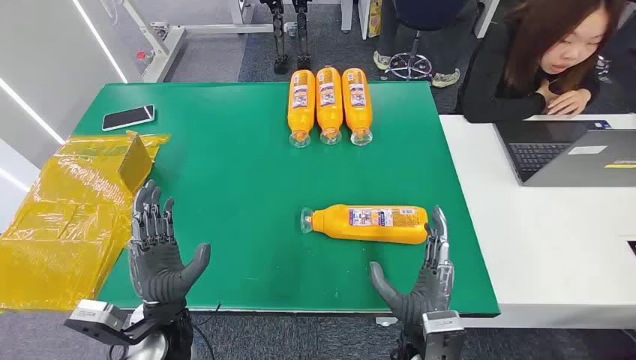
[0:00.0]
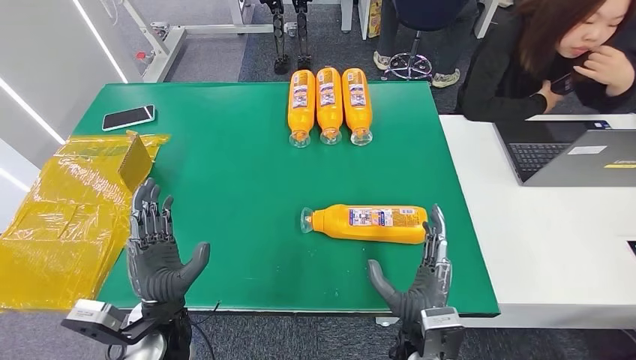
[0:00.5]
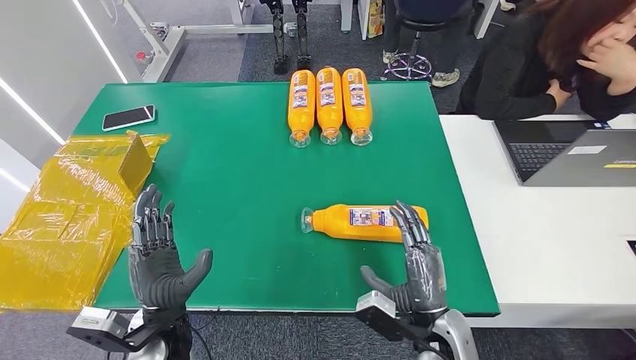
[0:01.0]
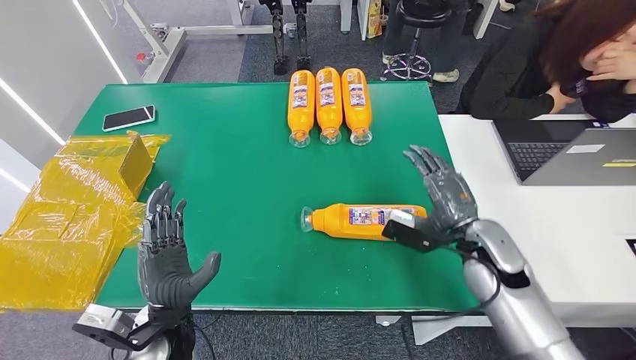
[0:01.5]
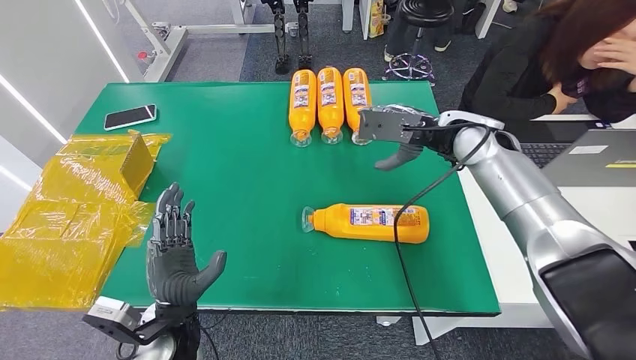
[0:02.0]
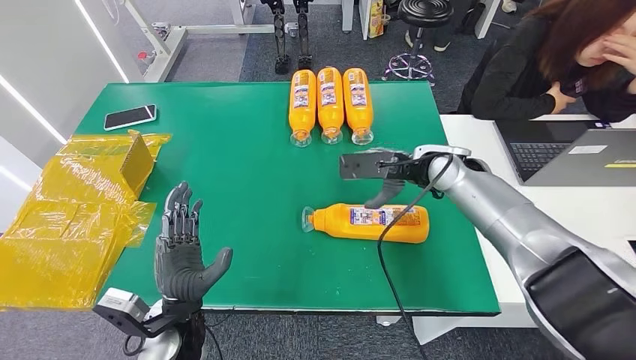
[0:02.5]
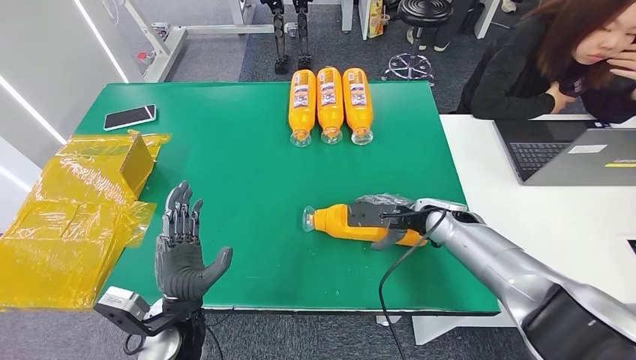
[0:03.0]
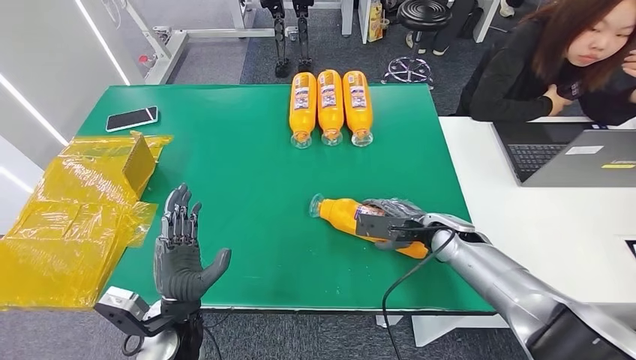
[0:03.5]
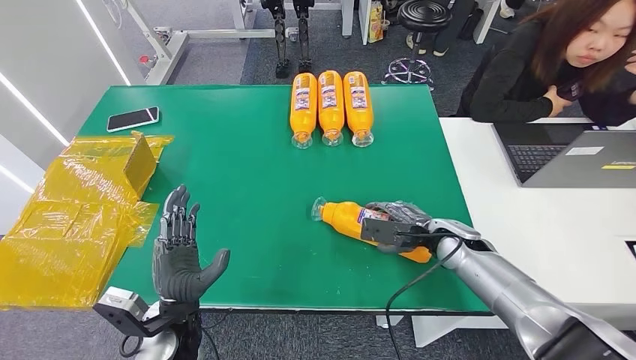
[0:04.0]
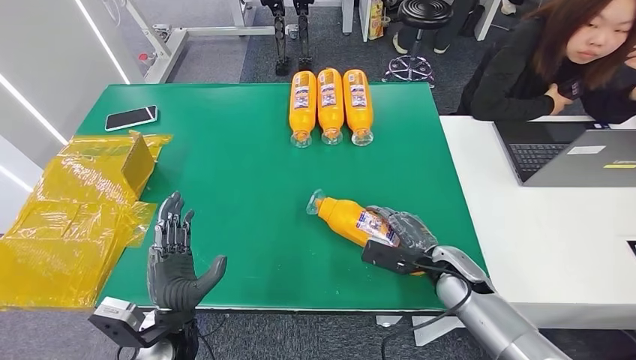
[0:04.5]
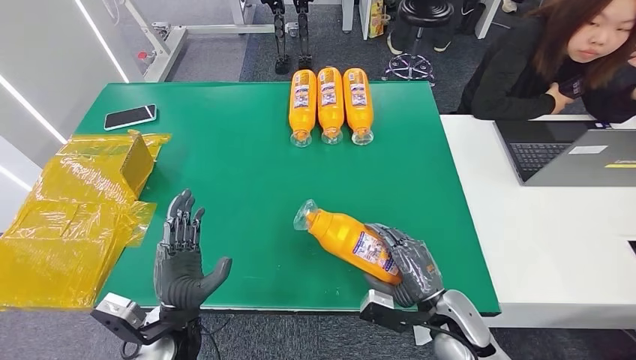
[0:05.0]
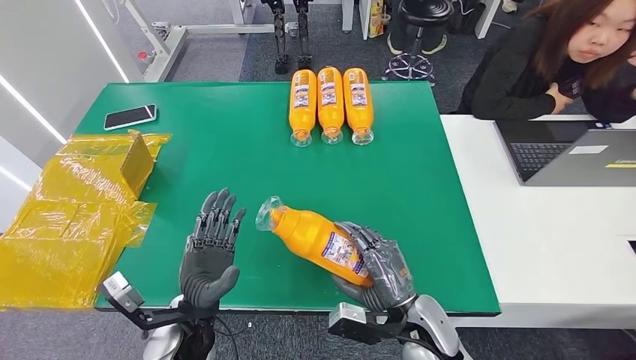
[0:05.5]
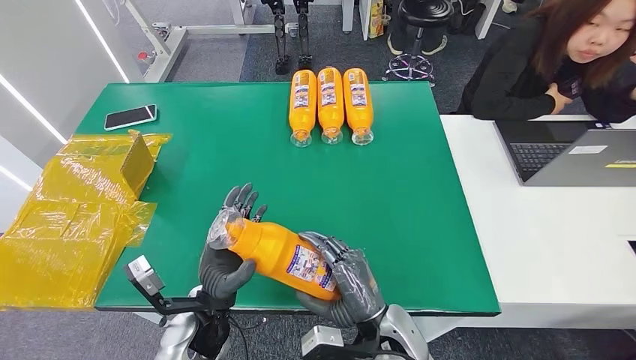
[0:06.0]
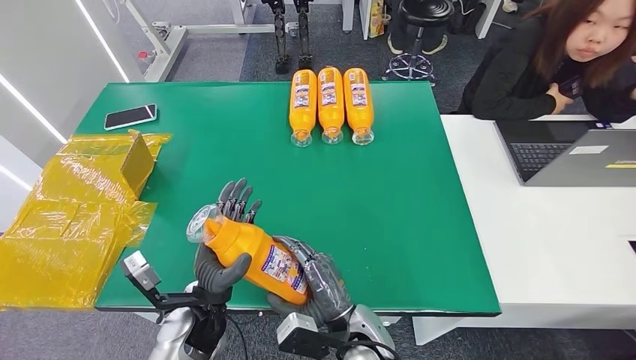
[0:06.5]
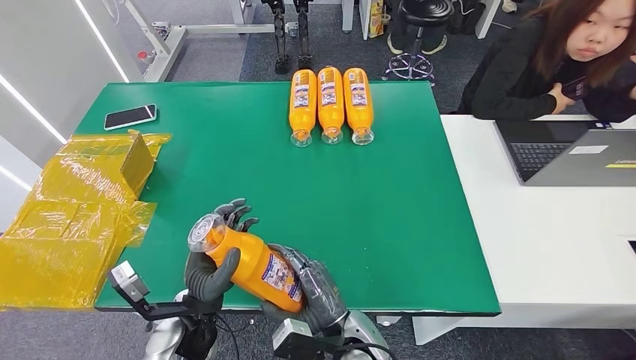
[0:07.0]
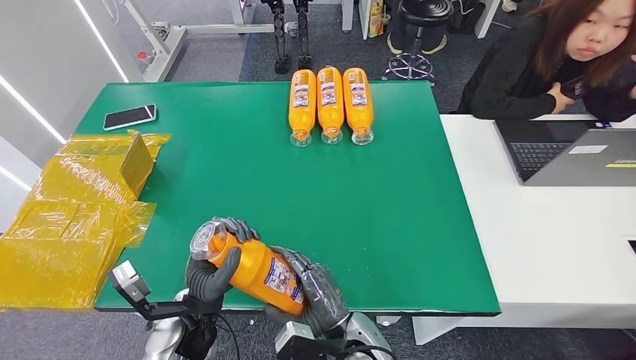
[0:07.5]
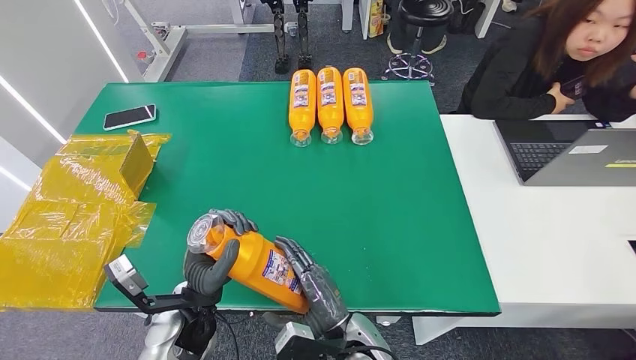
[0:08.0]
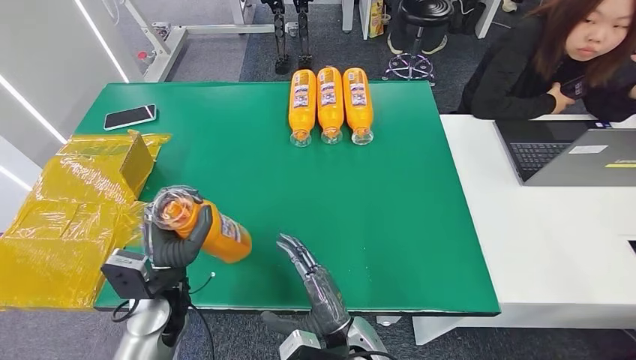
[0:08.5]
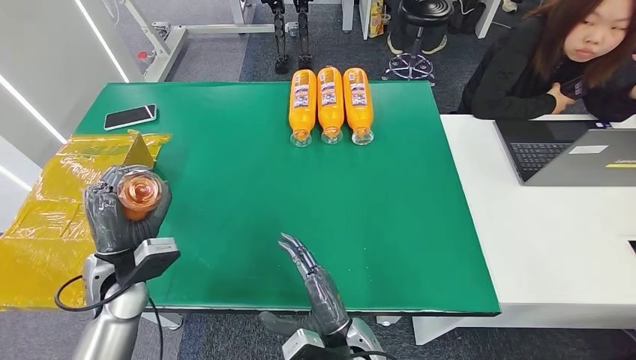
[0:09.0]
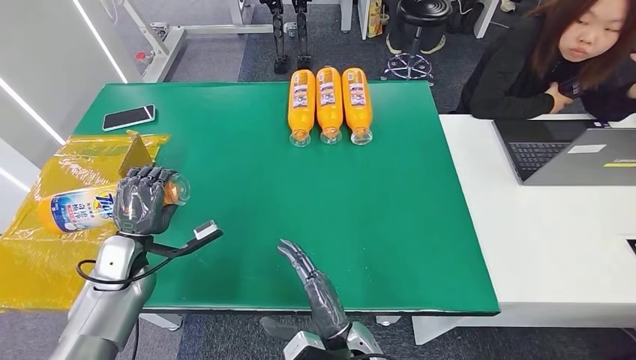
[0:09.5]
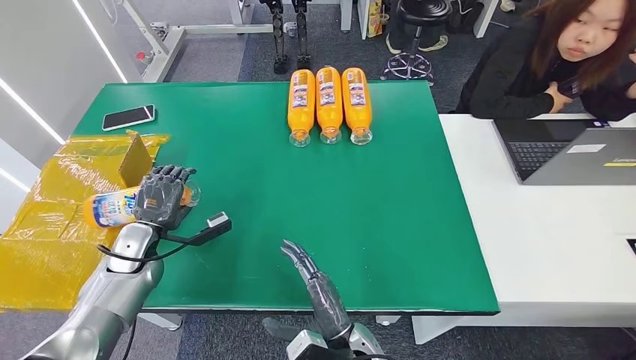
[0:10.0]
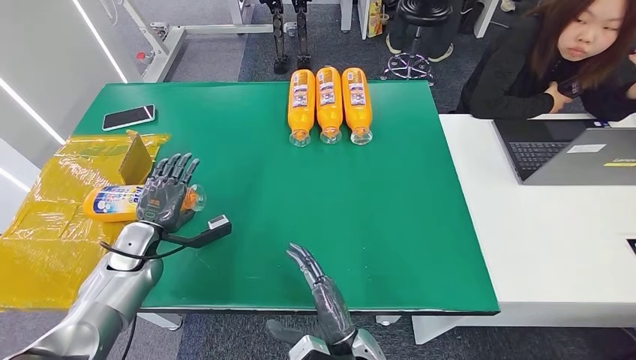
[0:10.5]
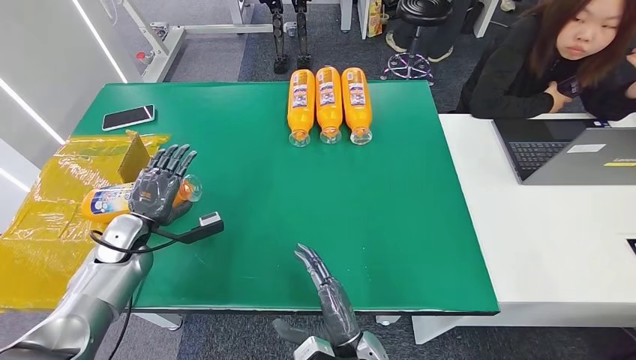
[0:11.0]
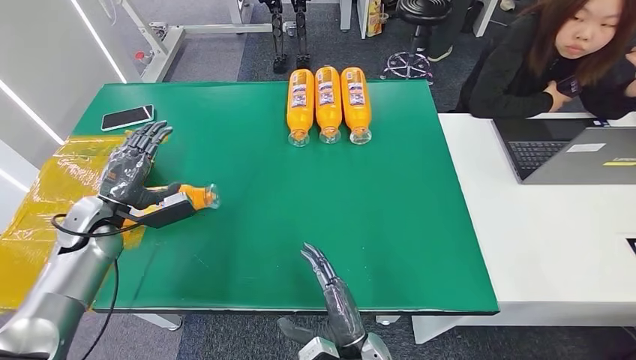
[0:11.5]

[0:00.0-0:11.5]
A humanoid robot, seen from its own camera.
Step, 0:00.0 to 0:05.5: Pick up the bottle from the table.
Step, 0:06.0 to 0:11.5: Turn the bottle to the front side.
0:06.0 to 0:07.5: The right hand is displaced to the left by about 5 cm.
0:07.5 to 0:09.5: The left hand shifts about 20 cm to the left and forward.
0:09.5 to 0:11.5: The left hand shifts about 10 cm to the left and forward.

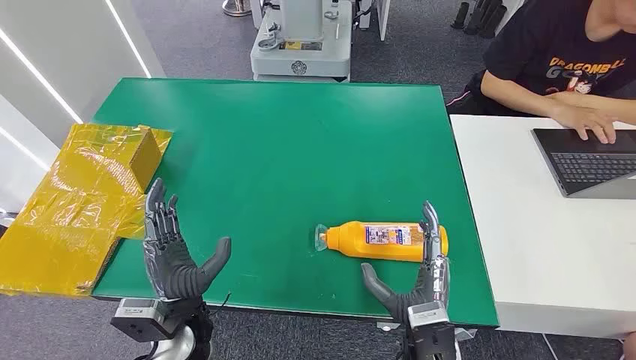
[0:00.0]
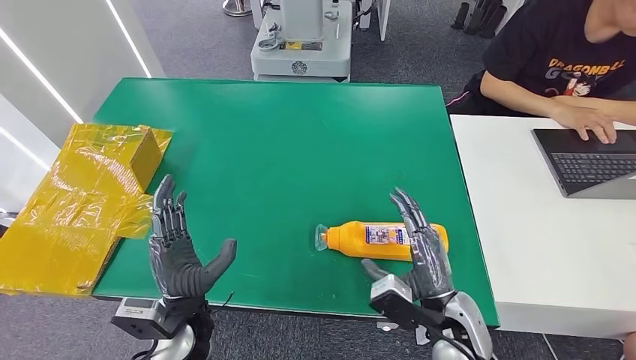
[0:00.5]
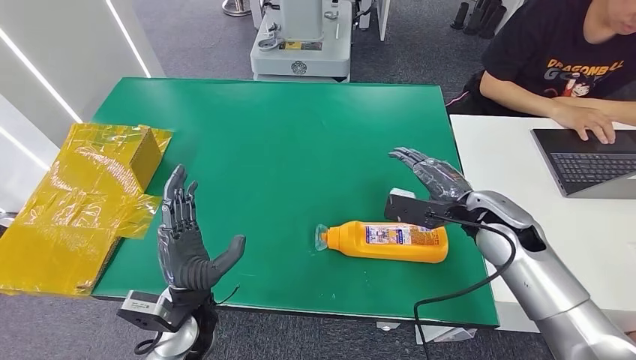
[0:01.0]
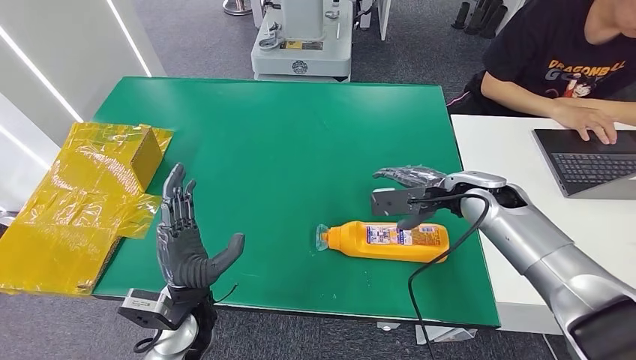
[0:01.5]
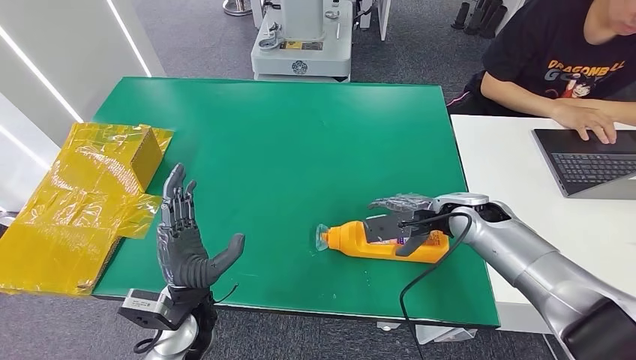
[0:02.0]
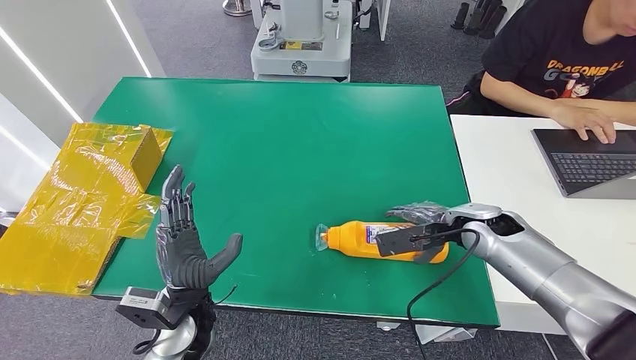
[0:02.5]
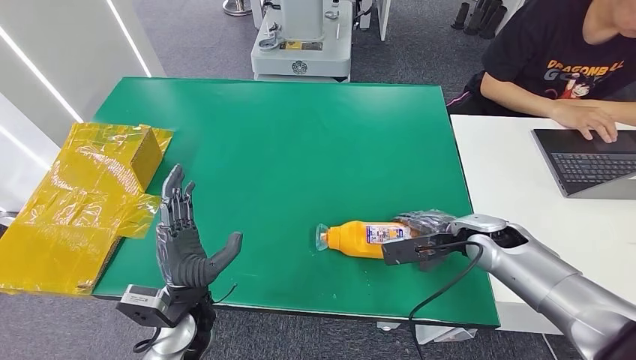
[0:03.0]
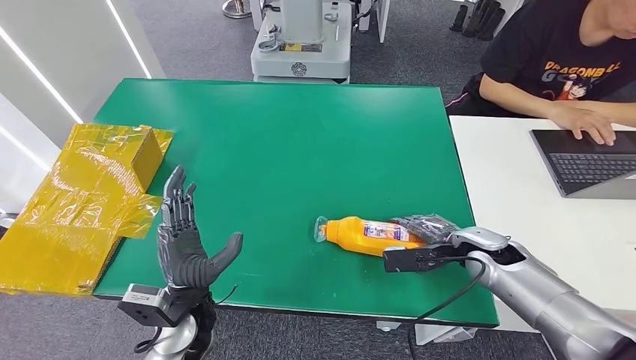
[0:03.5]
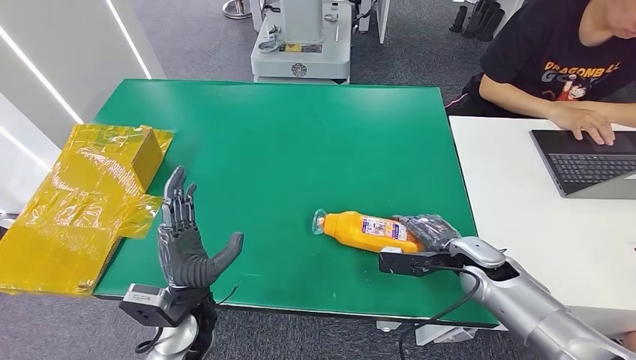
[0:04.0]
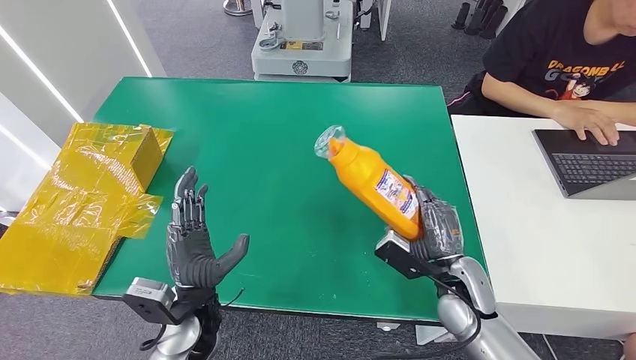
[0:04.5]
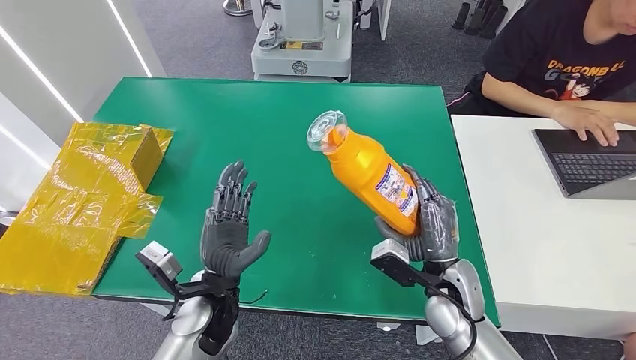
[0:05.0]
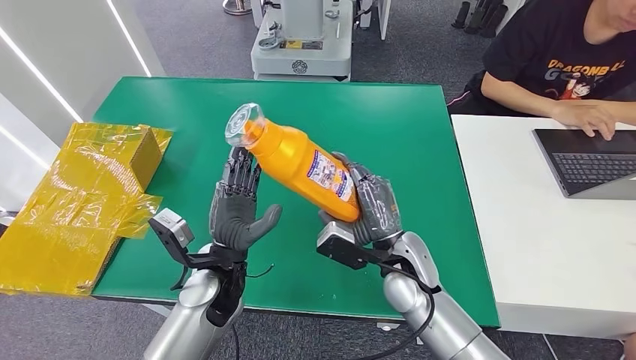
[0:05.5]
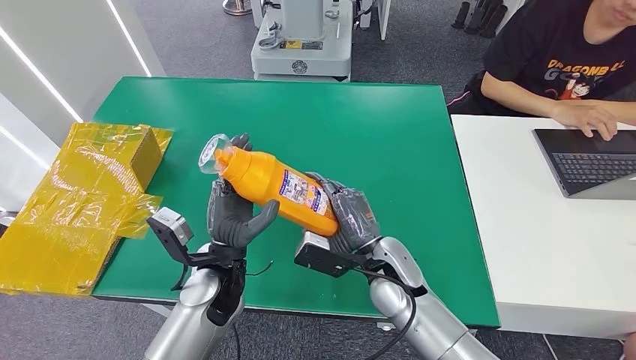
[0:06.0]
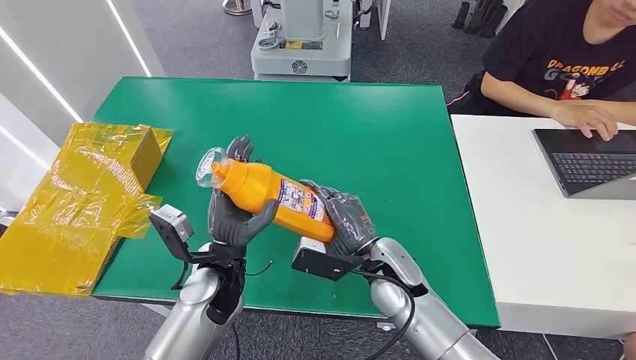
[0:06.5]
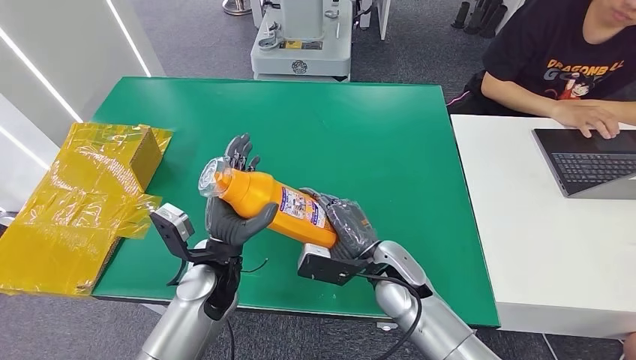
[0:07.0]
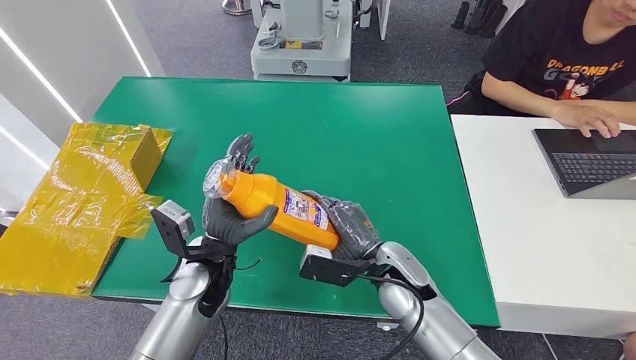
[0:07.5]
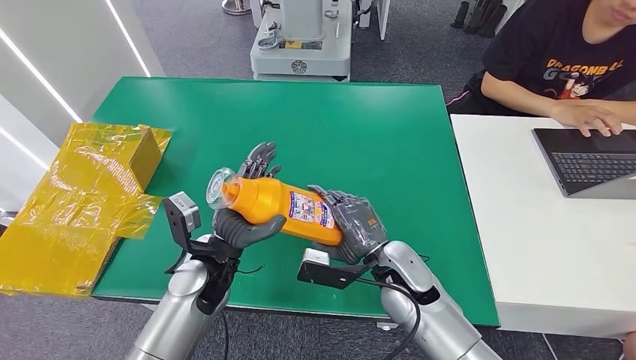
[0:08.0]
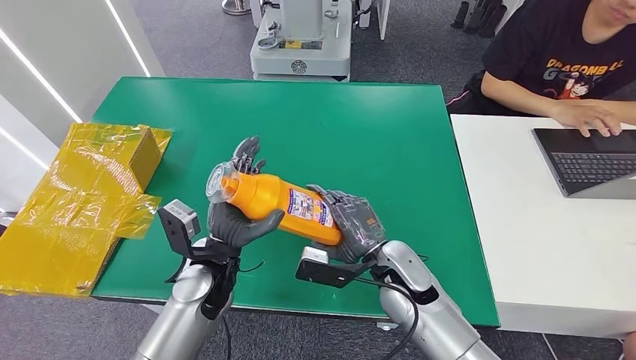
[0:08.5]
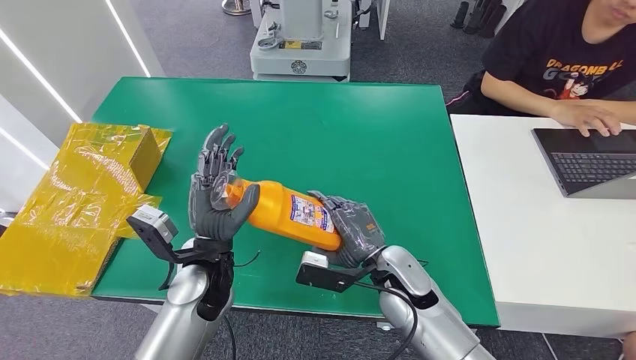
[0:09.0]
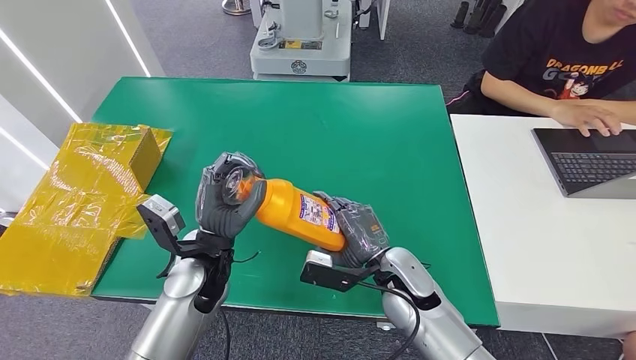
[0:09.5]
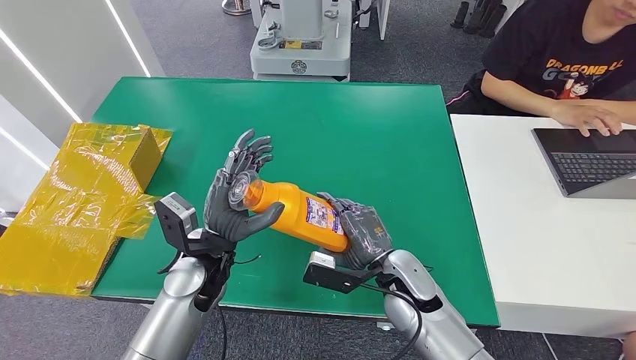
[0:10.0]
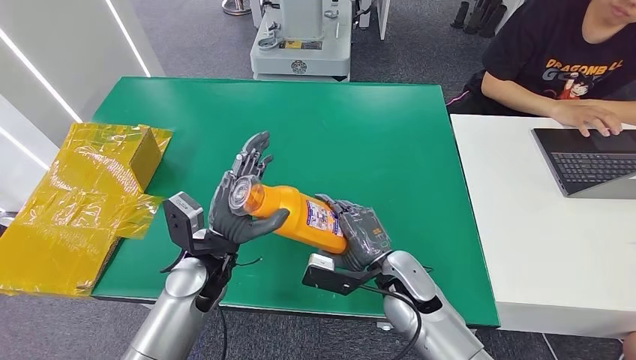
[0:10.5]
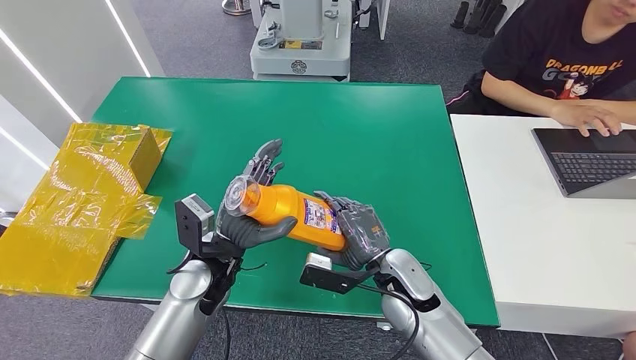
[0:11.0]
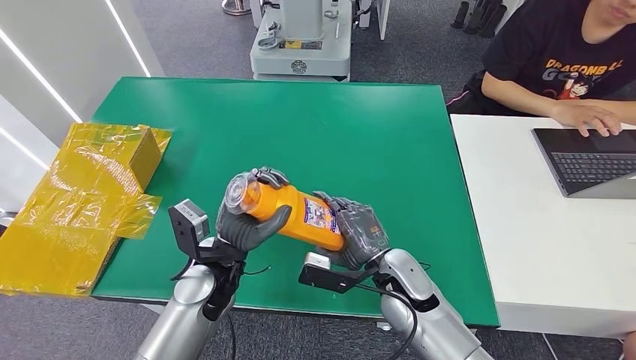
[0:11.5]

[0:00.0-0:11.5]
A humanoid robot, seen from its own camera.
Step, 0:00.0 to 0:05.5: Pick up the bottle from the table.
0:02.0 to 0:04.0: The right hand shifts roughly 10 cm downward and backward.
0:06.0 to 0:11.5: The hands make only small movements.
